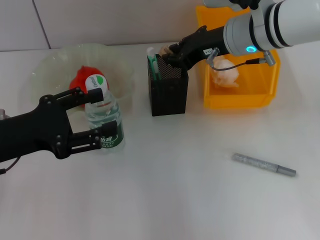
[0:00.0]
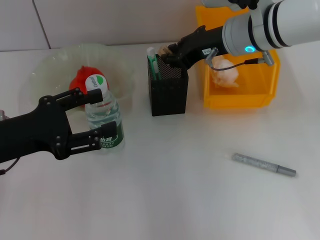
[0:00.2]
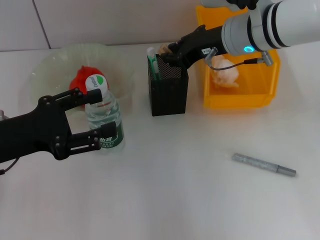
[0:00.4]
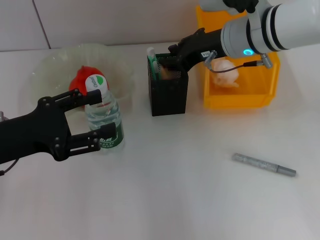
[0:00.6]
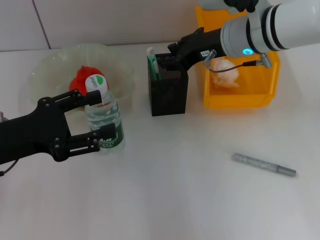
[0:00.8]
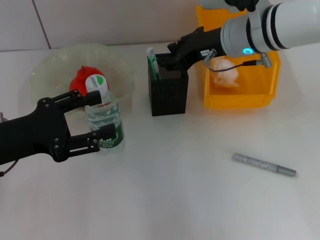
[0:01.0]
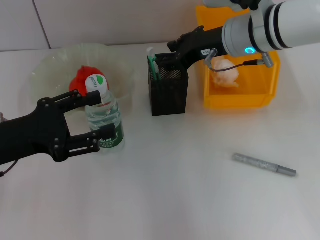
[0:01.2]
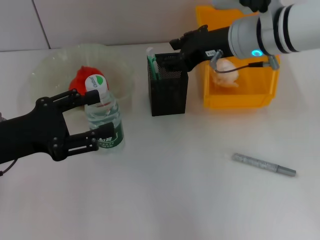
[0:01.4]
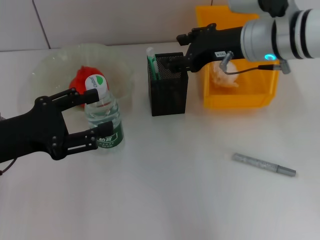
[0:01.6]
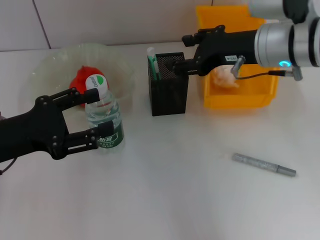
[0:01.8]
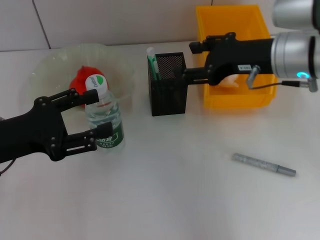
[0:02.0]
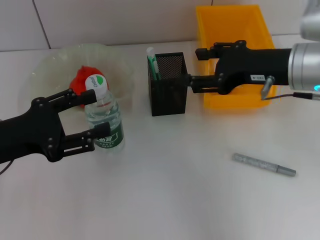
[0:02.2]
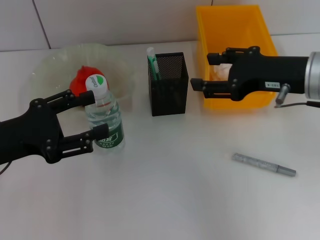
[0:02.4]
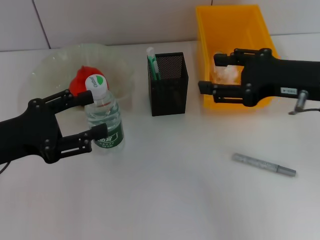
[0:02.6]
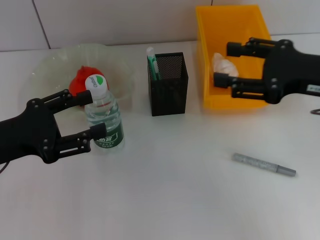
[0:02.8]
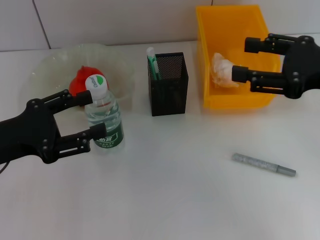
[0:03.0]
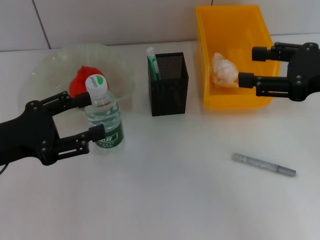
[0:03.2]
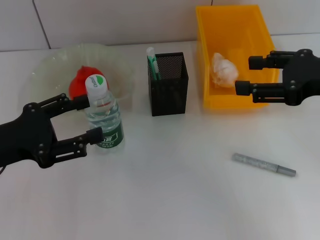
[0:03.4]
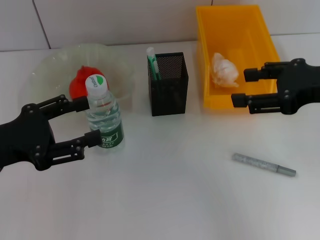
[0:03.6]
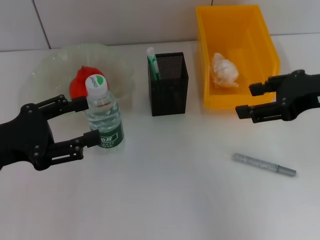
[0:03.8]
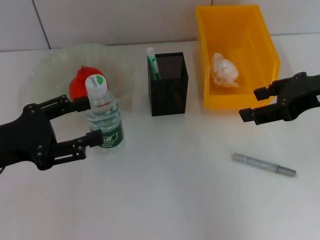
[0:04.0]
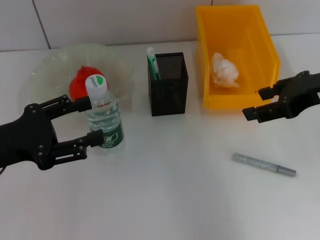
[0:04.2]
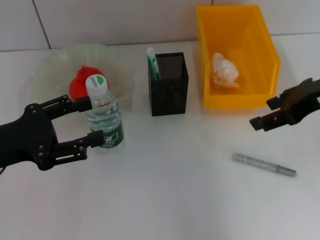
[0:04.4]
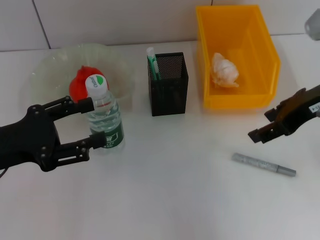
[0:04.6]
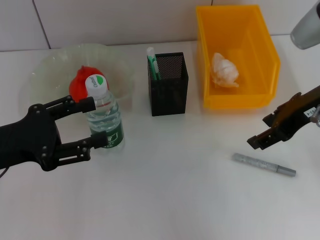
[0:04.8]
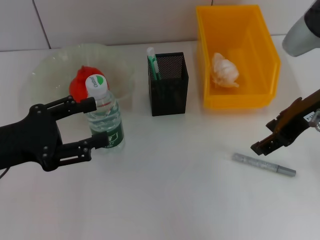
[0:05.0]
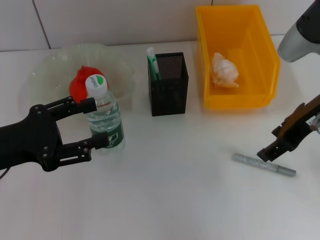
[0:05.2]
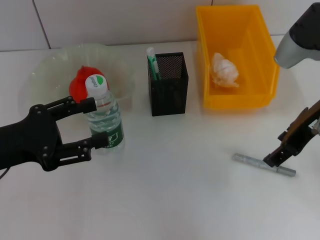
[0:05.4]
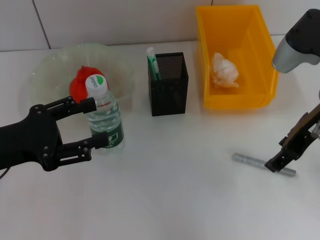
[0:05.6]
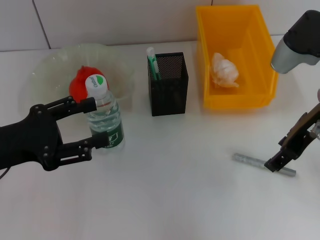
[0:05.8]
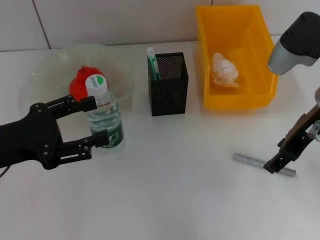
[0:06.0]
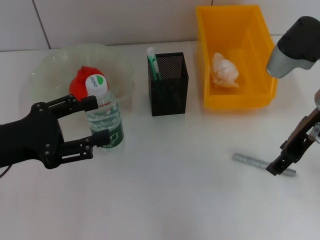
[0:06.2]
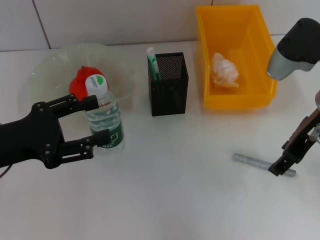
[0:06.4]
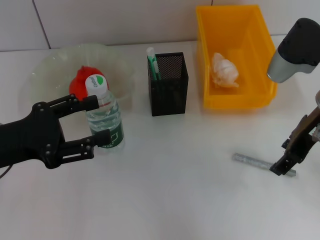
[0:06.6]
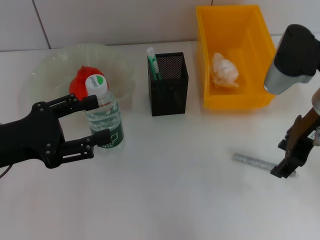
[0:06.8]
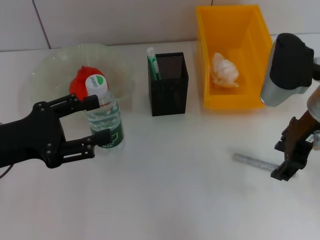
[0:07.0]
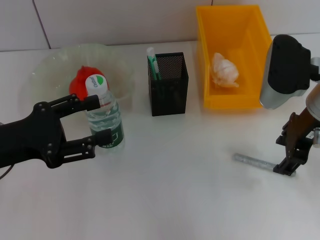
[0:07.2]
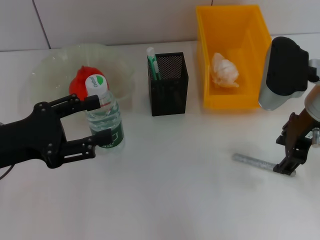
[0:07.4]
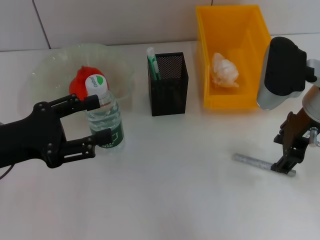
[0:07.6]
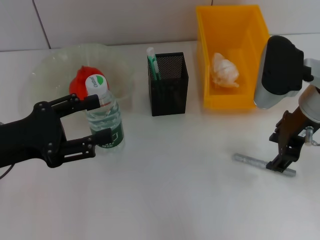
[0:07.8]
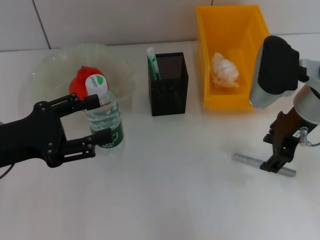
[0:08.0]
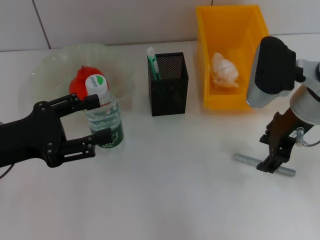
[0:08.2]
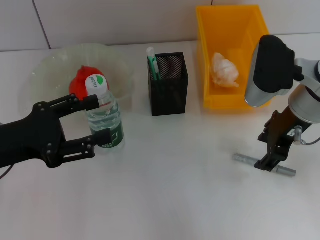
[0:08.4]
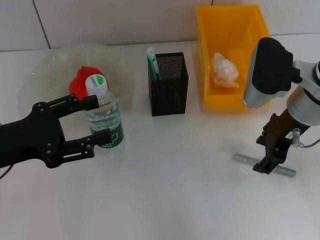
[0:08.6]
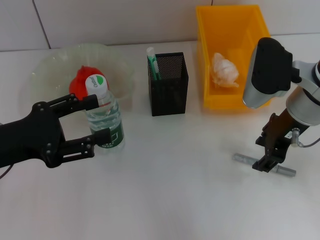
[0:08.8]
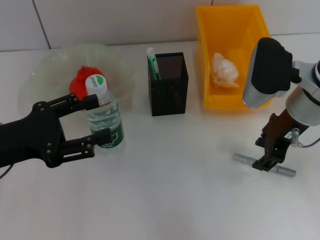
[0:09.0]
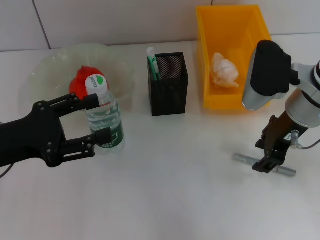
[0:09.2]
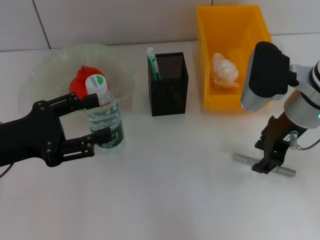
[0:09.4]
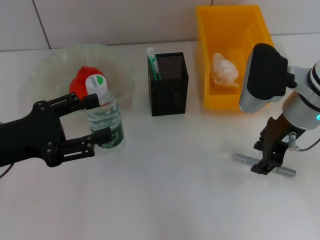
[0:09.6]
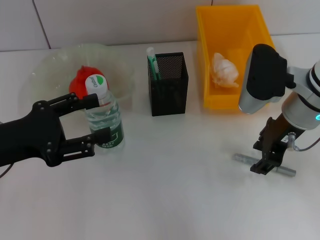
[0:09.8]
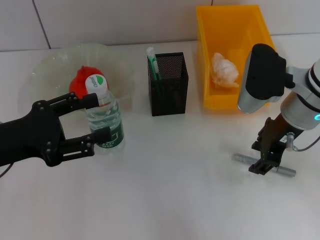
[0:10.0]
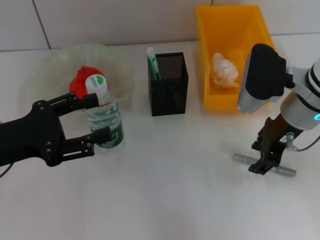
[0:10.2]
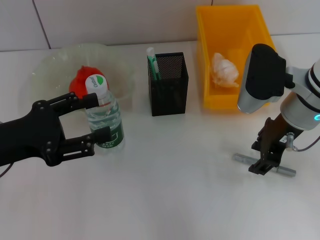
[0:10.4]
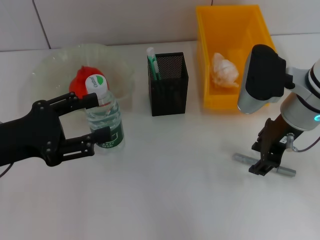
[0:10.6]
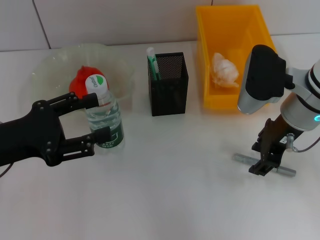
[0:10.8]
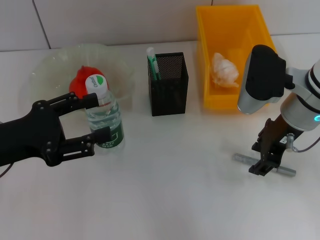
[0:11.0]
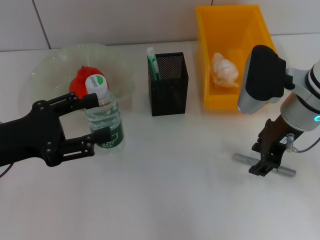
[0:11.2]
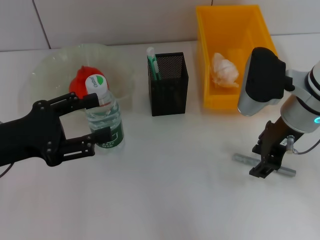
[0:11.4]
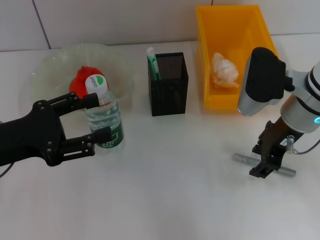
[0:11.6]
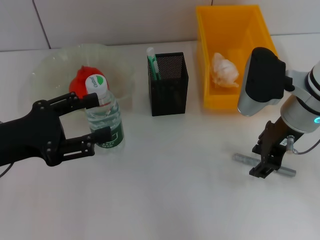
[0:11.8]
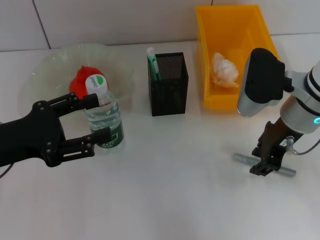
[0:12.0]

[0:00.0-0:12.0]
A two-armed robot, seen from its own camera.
0:00.0 to 0:01.6: The right gripper opens its fingers.
0:01.6 to 0:03.0: The right gripper travels backward and to the right by some 15 cm.
0:04.4 to 0:06.0: The right gripper shifts by about 5 cm.
0:07.6 to 0:09.0: There are only small adjustments of the grippers.
0:09.0 to 0:12.0: Both grippers stay about where they are.

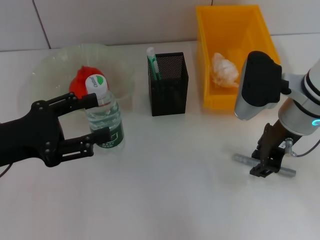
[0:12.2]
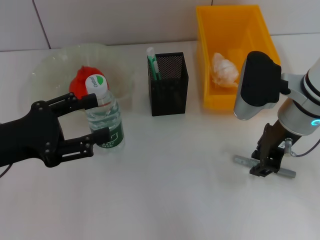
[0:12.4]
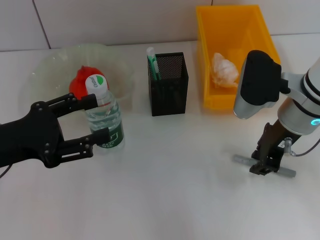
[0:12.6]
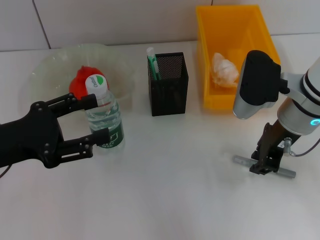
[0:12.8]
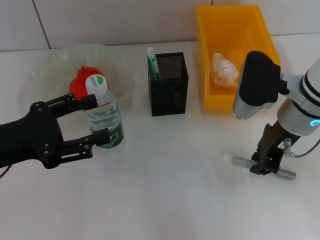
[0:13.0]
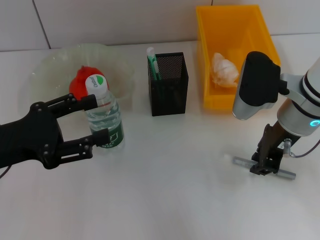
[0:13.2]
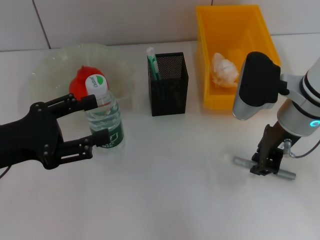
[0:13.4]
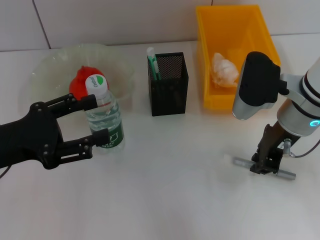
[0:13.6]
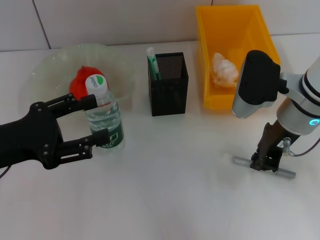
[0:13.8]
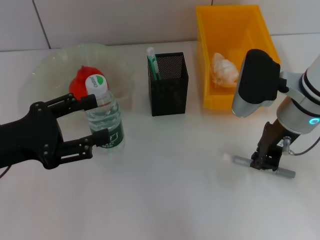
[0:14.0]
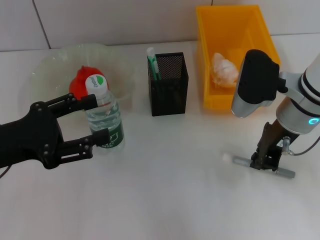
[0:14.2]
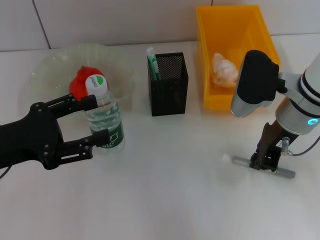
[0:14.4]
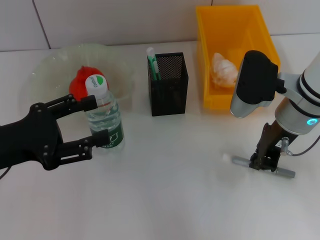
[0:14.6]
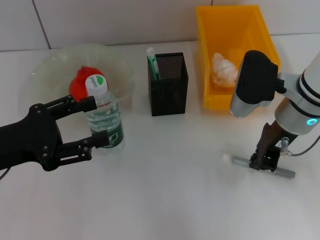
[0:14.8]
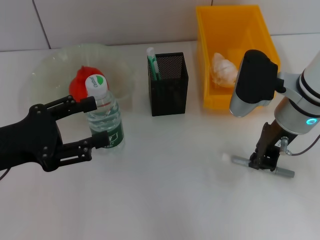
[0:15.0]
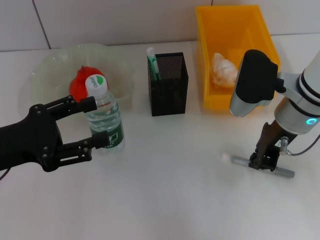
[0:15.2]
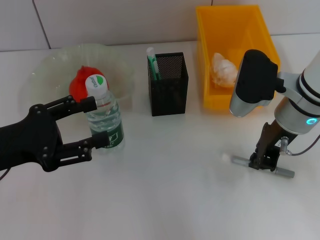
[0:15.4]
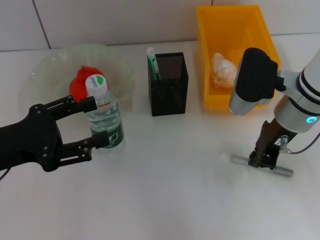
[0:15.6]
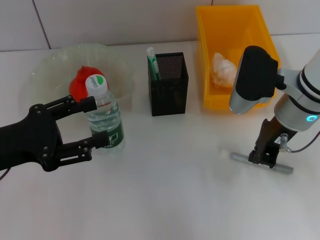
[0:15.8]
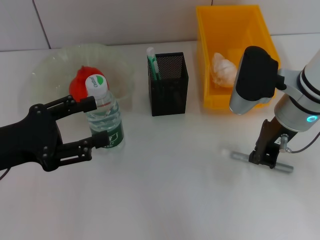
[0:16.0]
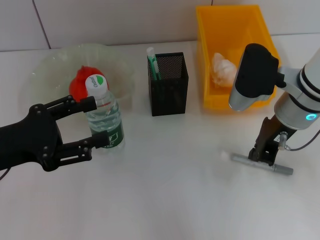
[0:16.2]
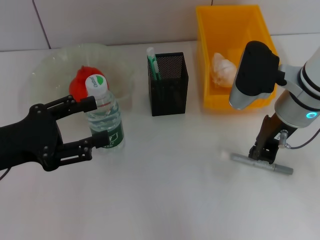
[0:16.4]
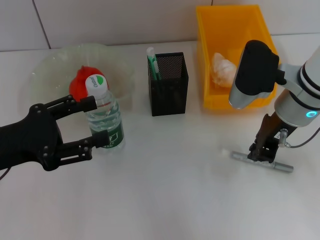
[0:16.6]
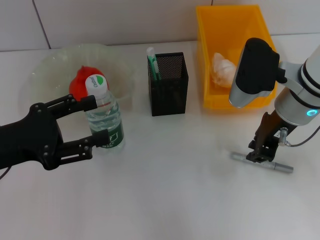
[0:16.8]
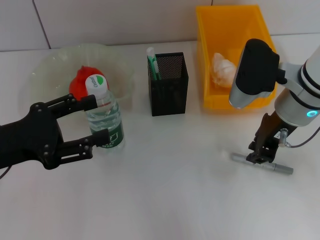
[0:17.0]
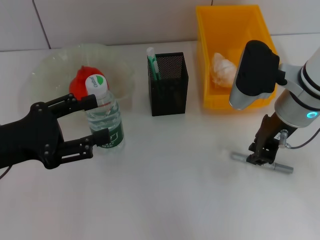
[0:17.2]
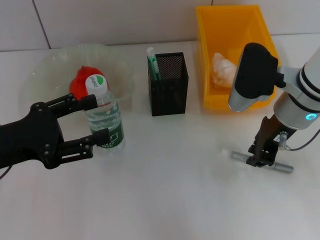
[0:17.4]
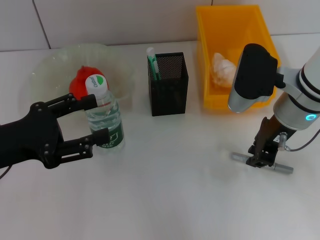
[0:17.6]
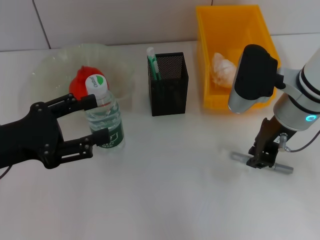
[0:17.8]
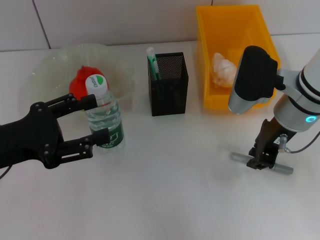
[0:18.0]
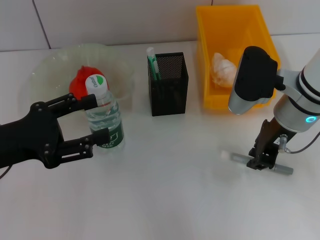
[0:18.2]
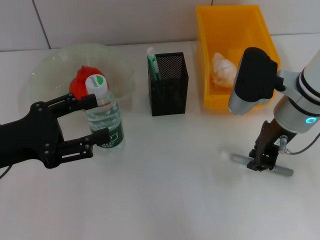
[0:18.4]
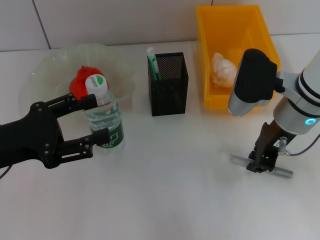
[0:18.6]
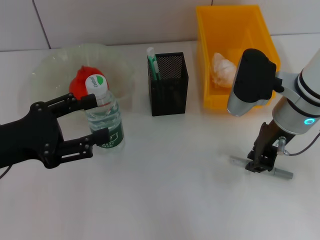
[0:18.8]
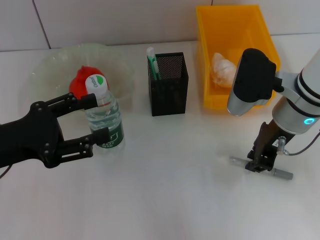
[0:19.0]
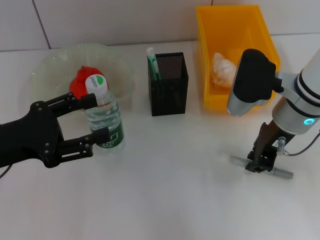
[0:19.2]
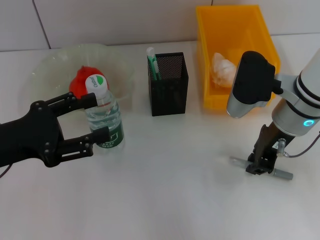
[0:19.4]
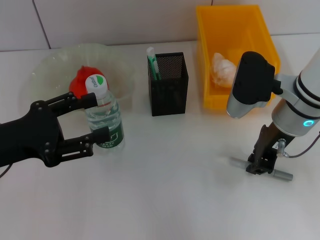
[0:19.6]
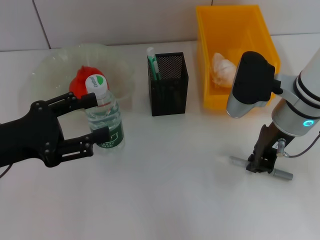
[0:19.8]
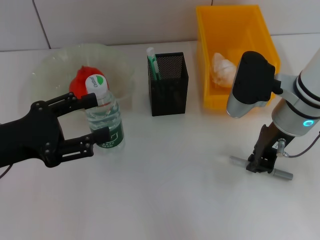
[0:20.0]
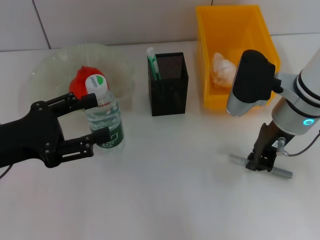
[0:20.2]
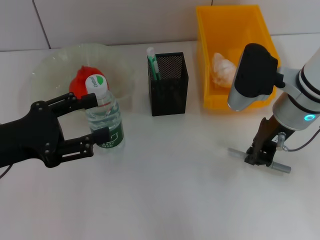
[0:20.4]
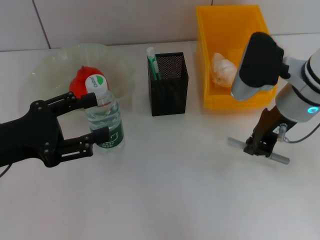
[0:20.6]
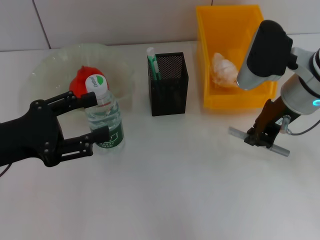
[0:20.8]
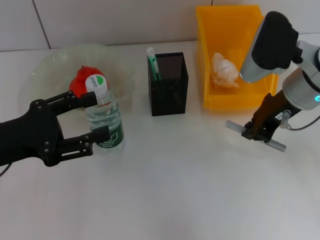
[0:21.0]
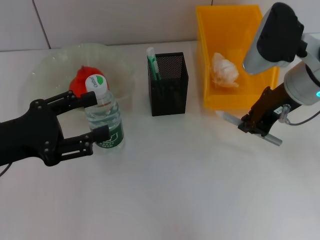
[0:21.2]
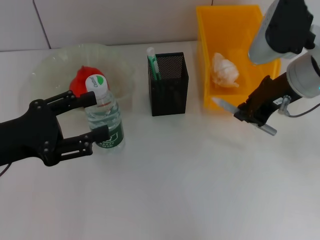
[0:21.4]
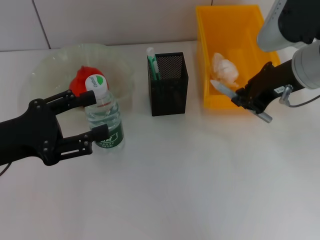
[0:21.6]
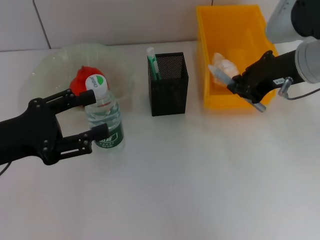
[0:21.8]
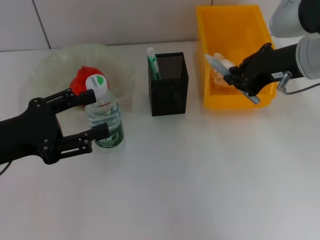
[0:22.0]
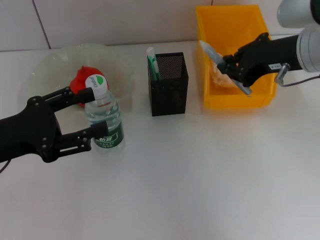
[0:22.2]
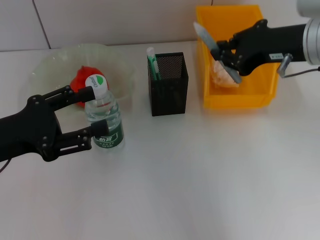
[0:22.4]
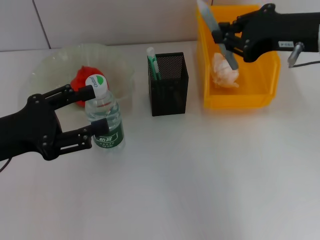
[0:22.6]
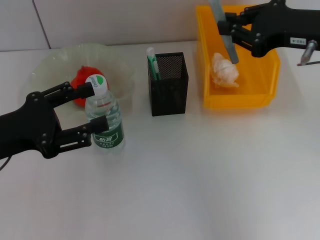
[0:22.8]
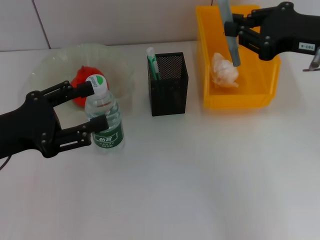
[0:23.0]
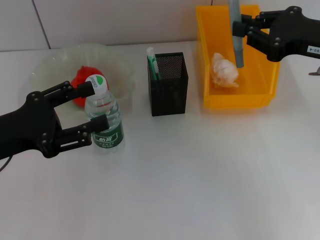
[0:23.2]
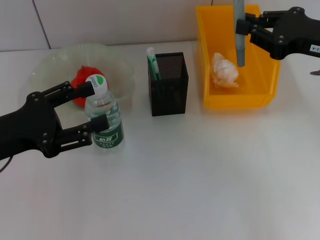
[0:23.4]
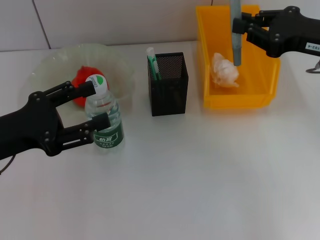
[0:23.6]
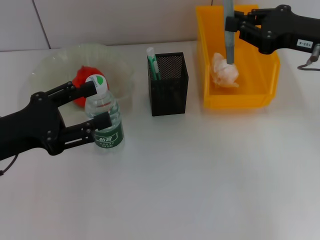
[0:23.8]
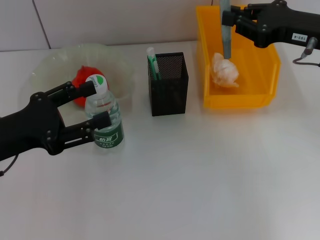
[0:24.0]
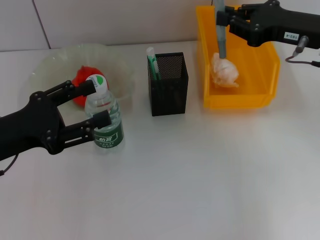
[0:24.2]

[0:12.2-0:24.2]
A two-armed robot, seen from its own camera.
Step, 0:12.2 to 0:20.0: Grab the gray glue with the right hand.
0:12.2 to 0:19.8: Both grippers stay put.
0:19.8 to 0:21.2: The grippers stay close to where they were, moving slightly.
0:21.2 to 0:22.6: The right gripper heads upward, covering roughly 5 cm.
0:22.6 to 0:24.2: The right gripper ends up roughly 5 cm from where it was.
